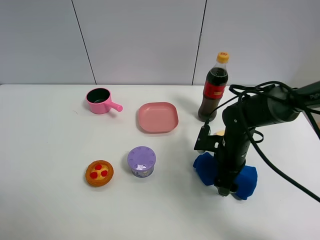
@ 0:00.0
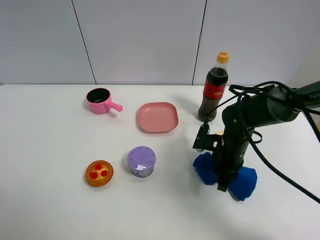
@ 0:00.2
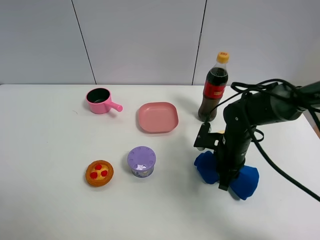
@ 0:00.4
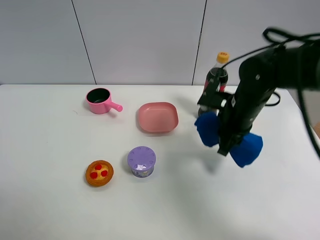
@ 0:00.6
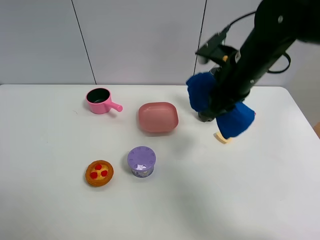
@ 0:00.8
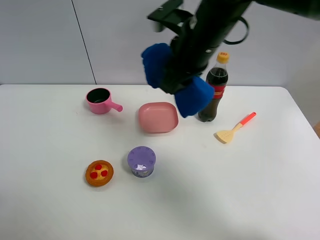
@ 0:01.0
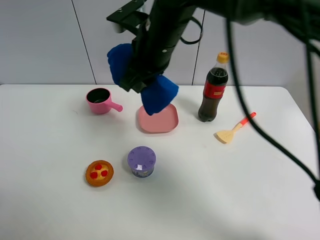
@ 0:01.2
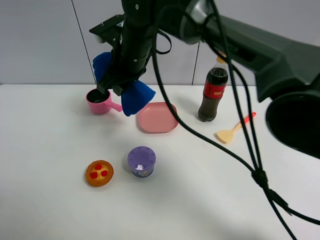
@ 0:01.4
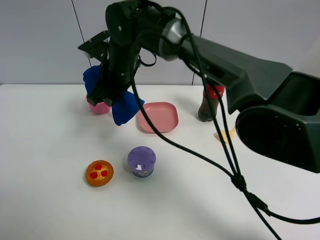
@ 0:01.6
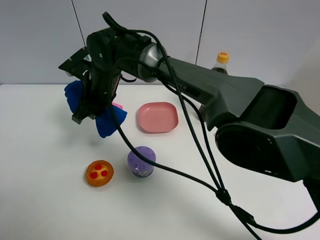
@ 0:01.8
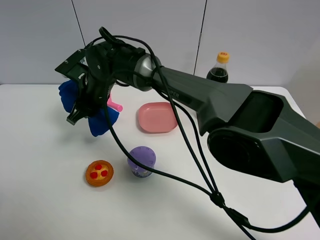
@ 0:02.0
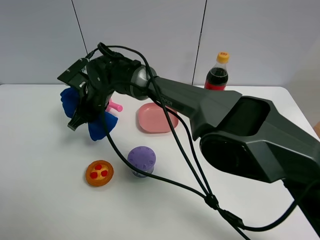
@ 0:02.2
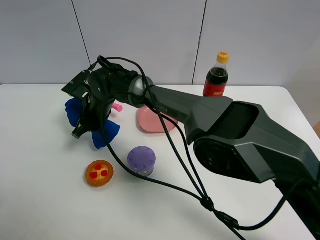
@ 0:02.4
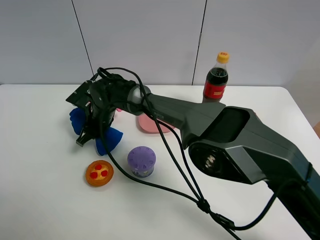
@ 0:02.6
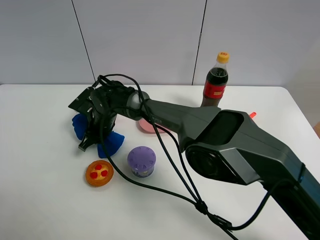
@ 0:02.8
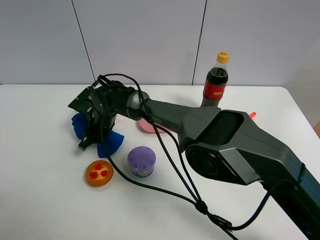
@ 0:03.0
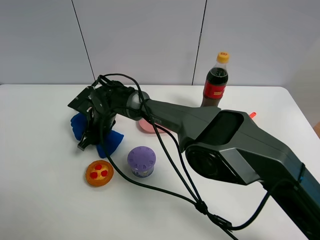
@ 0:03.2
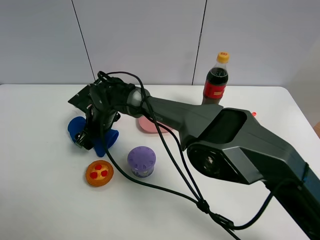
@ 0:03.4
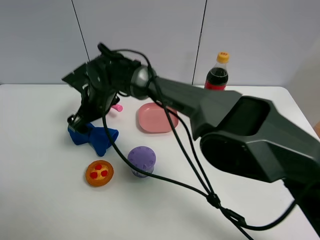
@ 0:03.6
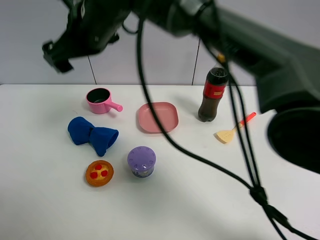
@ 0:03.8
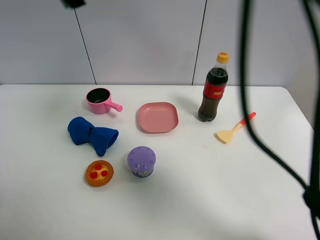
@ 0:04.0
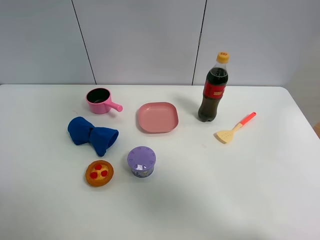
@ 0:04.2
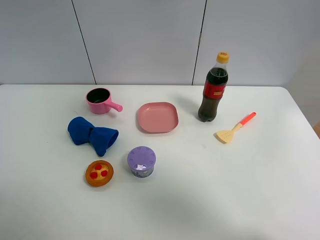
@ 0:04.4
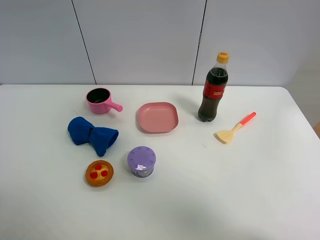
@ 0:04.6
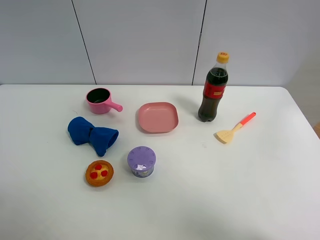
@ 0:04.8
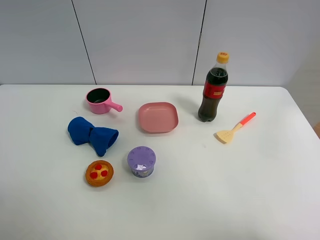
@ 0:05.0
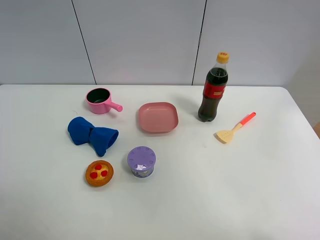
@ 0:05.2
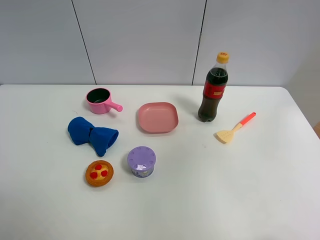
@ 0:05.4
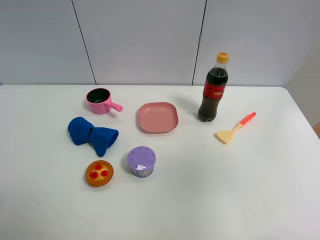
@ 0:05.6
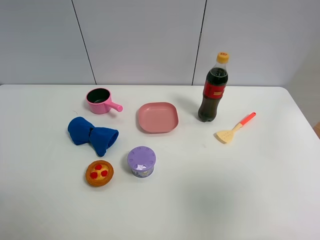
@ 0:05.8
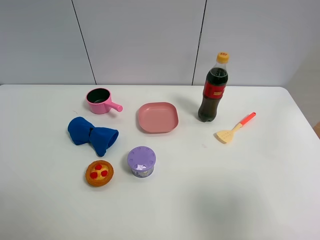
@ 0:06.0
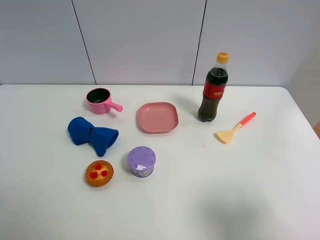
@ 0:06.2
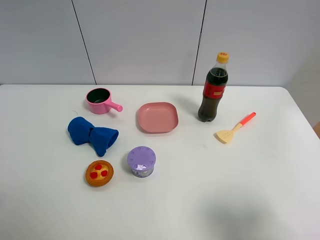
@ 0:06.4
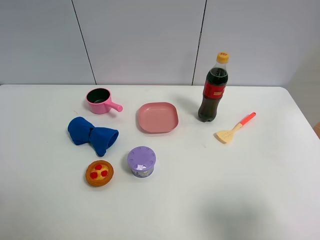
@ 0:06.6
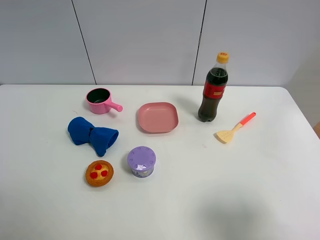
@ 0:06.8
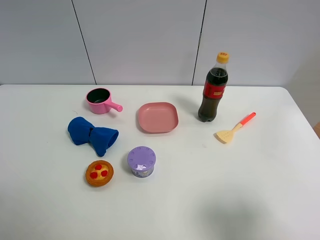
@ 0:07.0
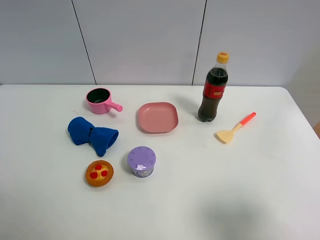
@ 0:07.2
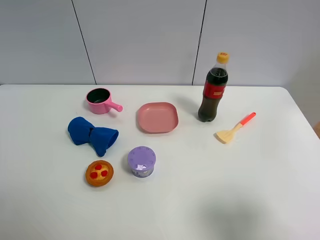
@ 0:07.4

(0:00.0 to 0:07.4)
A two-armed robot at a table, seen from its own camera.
Task of the whole recording: the gripper move the object.
Step, 0:00.2 - 0:03.4: Place the blue towel on the table with the right gripper.
0:00.0 - 0:01.4: The right gripper travels to the left and upward by about 30 cm, and closes its fingers.
0:01.4 - 0:03.0: The right gripper is displaced downward and to the left by about 20 cm.
0:03.0 - 0:04.4: The right gripper moves upward and to the right, some 50 cm, and opens.
0:04.4 - 0:06.0: The right gripper is displaced downward, backward and to the right by roughly 40 cm.

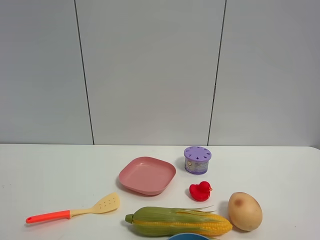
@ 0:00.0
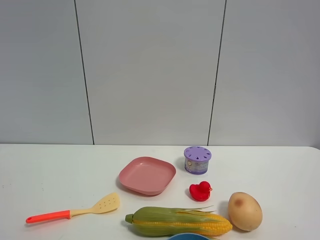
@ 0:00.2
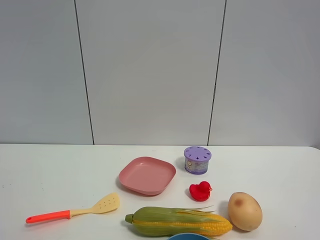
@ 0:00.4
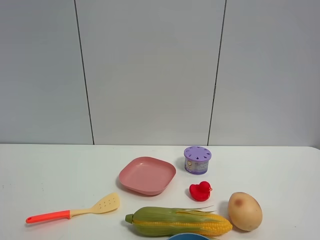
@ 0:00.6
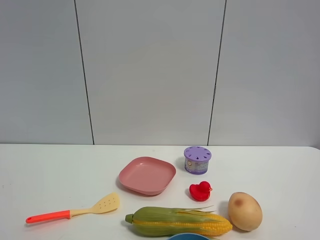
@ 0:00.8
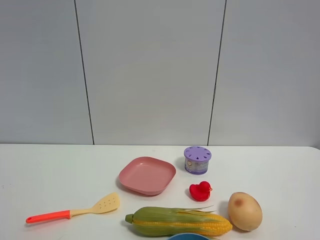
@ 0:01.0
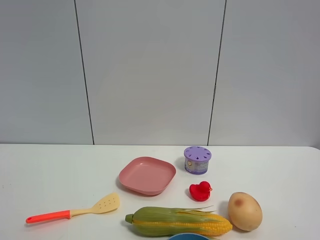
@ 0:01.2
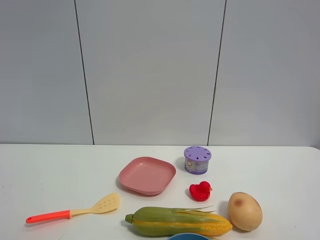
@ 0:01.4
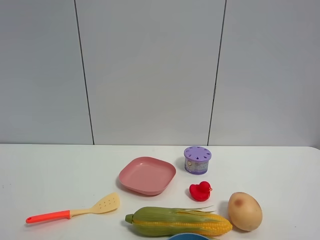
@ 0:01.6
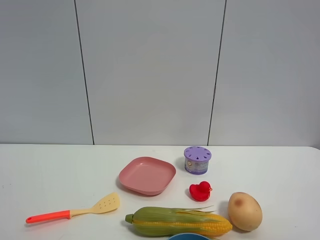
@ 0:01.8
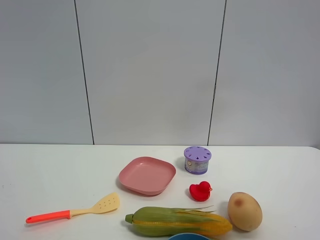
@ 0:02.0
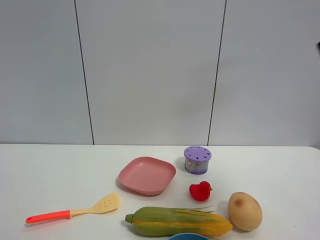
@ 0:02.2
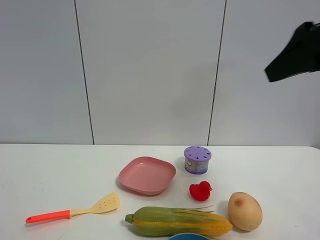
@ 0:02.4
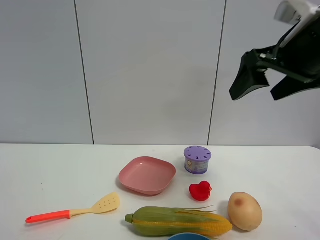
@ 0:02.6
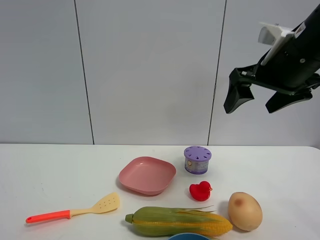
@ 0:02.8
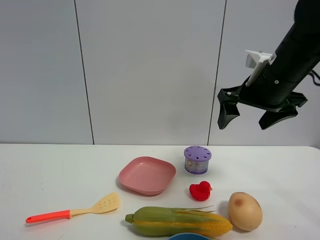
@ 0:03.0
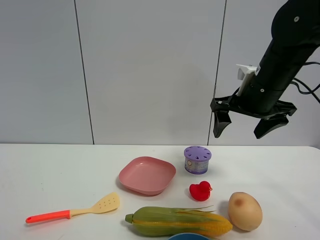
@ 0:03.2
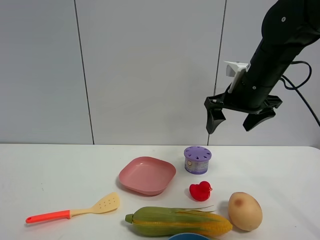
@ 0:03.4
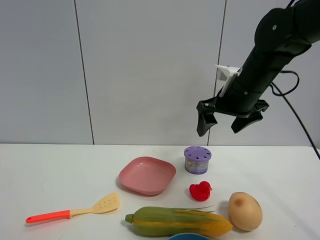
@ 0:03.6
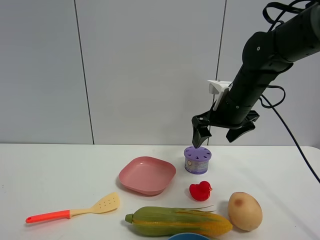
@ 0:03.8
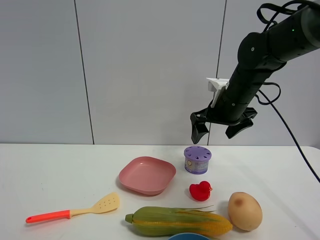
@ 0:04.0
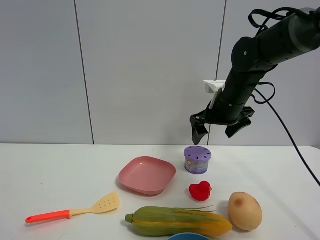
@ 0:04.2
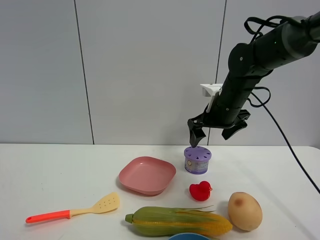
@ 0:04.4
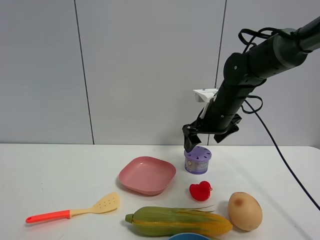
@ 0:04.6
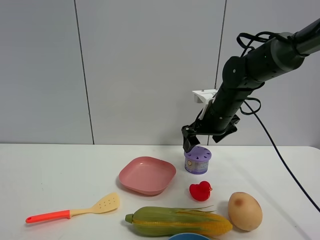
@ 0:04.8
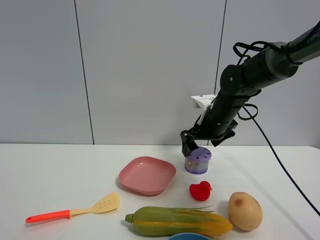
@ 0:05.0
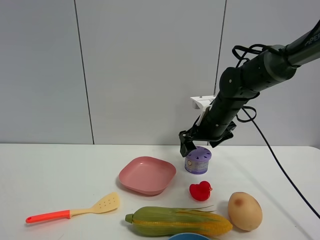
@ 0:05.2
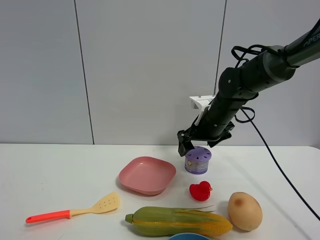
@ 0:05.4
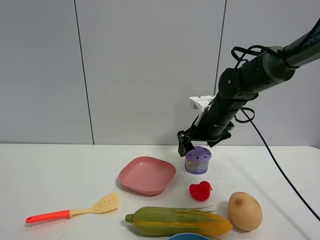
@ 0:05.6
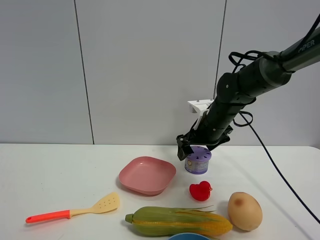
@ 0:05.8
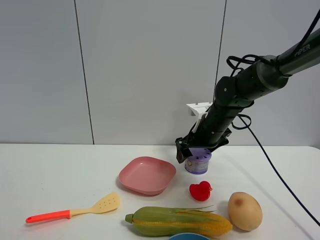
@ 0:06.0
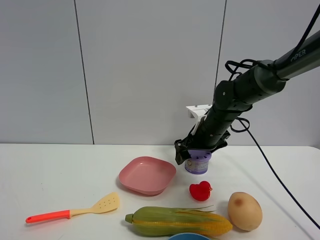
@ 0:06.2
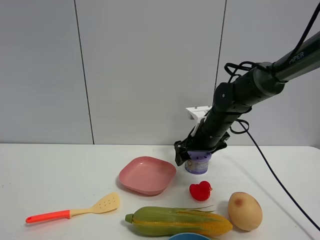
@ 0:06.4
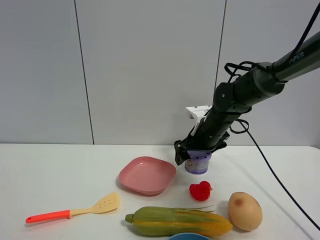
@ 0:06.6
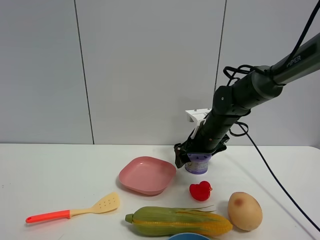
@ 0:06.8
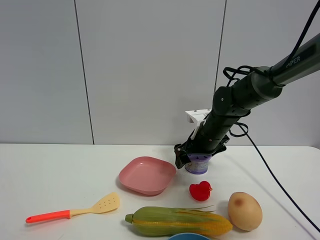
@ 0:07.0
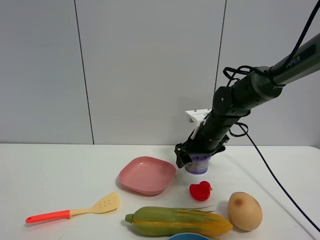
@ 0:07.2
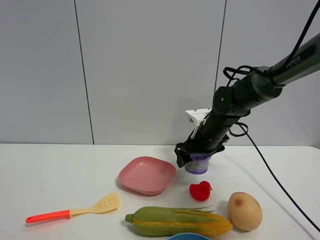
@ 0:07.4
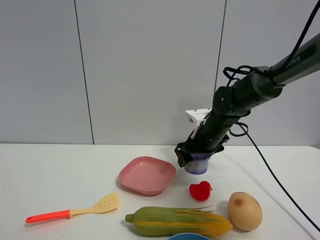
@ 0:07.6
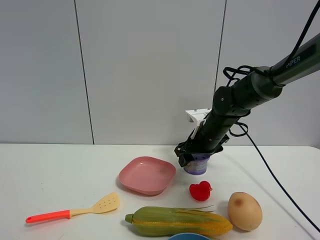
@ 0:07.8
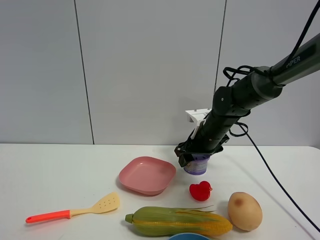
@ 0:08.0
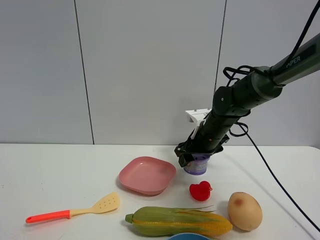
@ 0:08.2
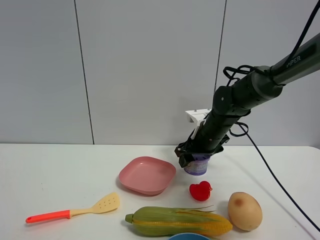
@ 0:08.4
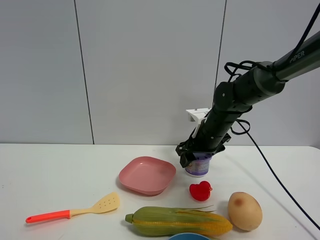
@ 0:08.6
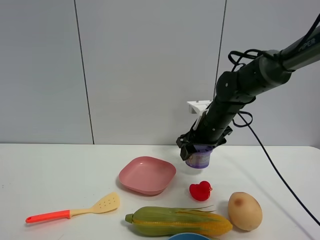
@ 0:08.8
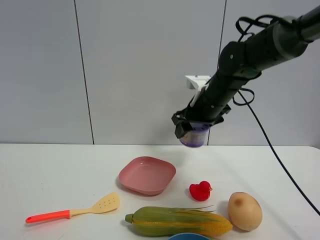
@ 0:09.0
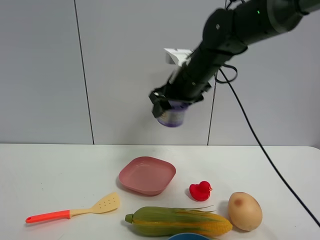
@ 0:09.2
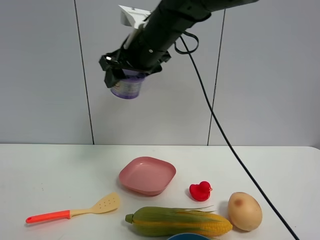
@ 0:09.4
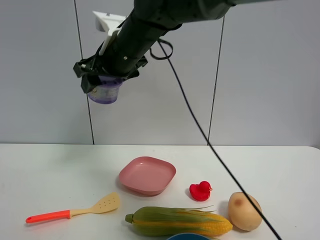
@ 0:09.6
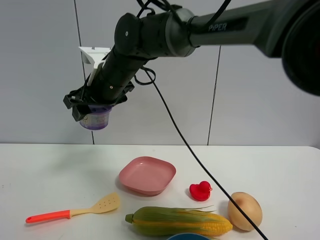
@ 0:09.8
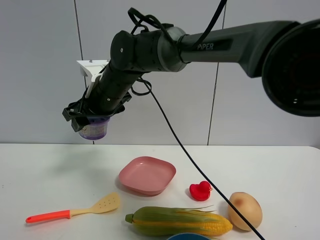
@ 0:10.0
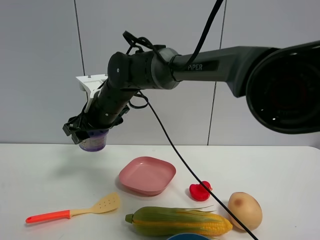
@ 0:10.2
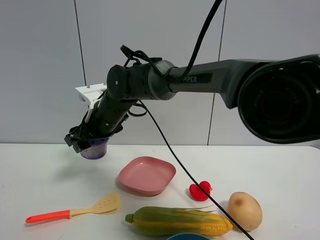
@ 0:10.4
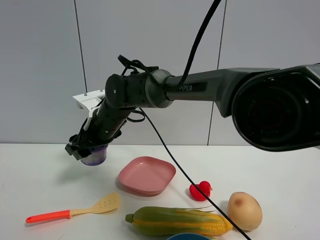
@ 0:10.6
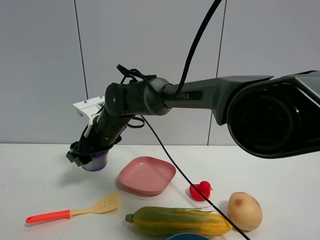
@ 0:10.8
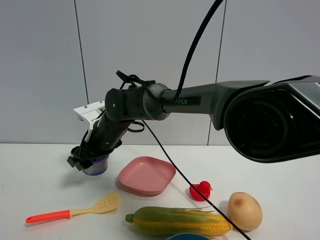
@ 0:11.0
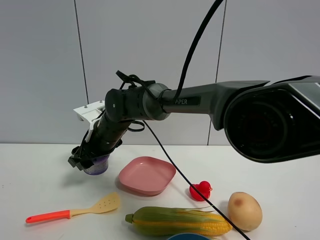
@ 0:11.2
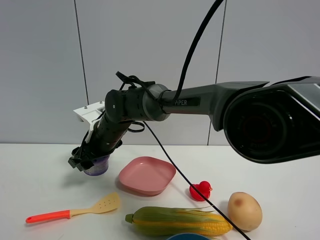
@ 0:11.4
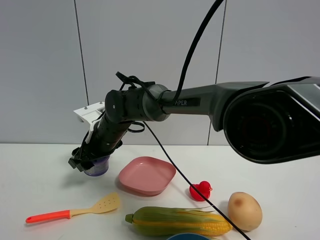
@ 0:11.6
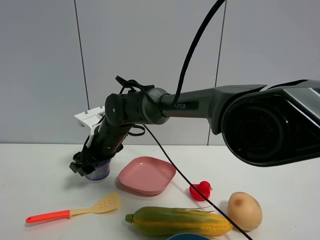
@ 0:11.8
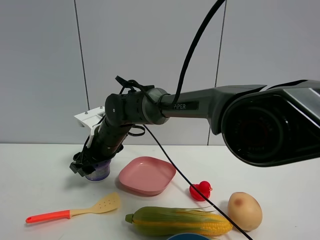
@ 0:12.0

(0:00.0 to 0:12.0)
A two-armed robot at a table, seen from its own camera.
Task of the whole recording: the gripper move the object.
Step, 0:00.0 - 0:07.8: Grasp the Incense box with the right gripper.
0:01.6 - 0:03.0: The right gripper travels forward by approximately 35 cm, and opens.
0:03.0 - 0:04.4: The right gripper travels forward and downward by roughly 10 cm.
0:04.4 - 0:06.0: The right gripper is displaced downward by approximately 5 cm.
0:06.0 - 0:07.6: The right gripper closes.
0:07.6 - 0:09.0: The right gripper travels upward by approximately 10 cm.
0:09.0 - 0:10.4: The right gripper moves to the left, some 20 cm.
0:10.4 - 0:12.0: The right gripper heads downward, covering roughly 5 cm.

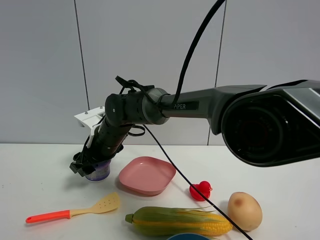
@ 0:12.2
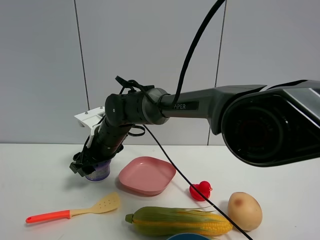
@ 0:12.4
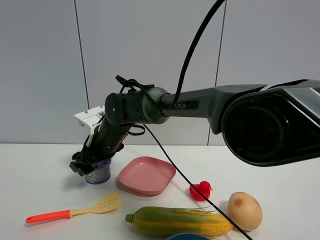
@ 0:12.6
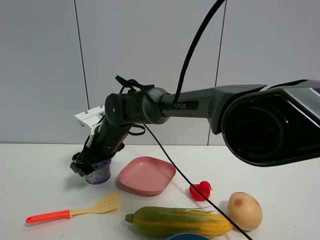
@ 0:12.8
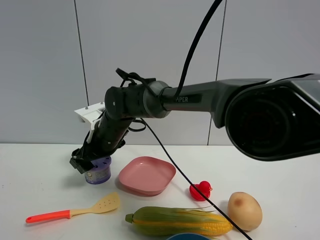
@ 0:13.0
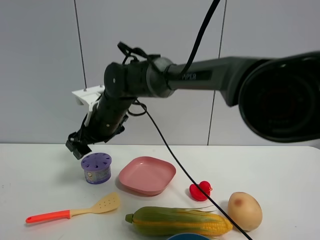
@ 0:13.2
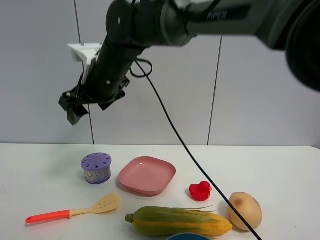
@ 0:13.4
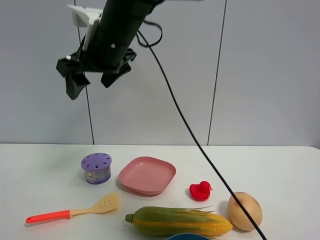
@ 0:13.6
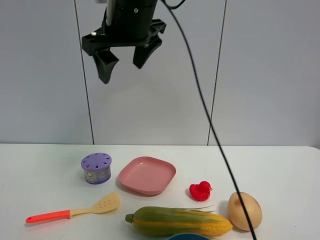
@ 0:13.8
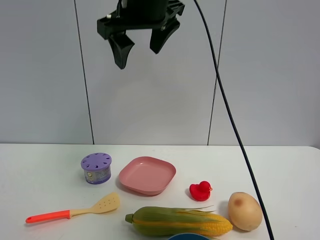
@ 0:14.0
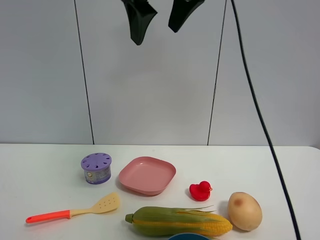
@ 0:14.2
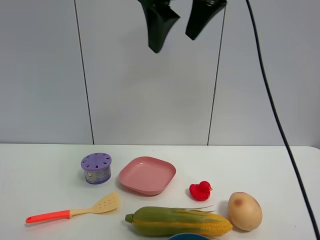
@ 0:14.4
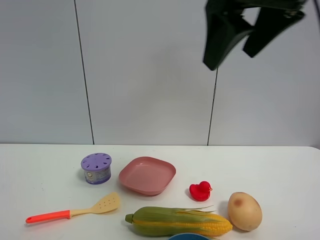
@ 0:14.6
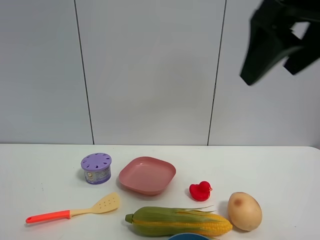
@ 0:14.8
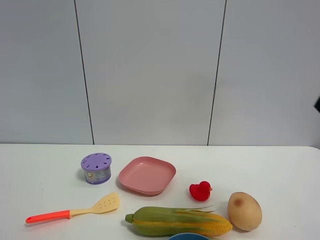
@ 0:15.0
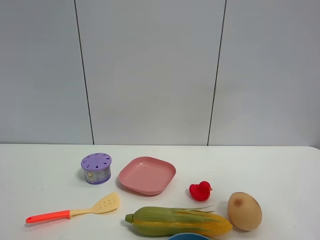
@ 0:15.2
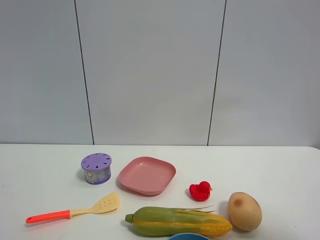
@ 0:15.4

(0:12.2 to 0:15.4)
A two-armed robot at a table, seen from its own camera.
Task of the whole recording: the gripper move the object.
0:12.2 - 0:13.8: The right gripper shifts approximately 25 cm upward.
0:13.8 - 0:15.4: The right gripper heads to the right and backward, covering approximately 40 cm.
